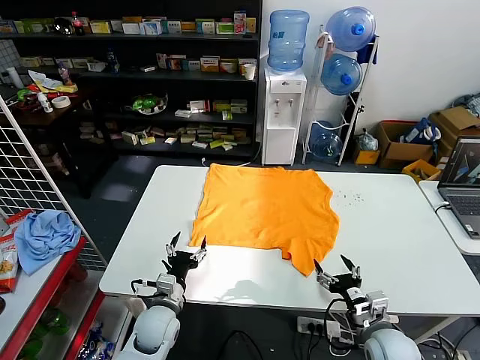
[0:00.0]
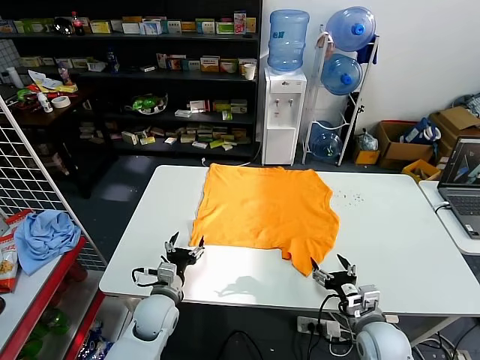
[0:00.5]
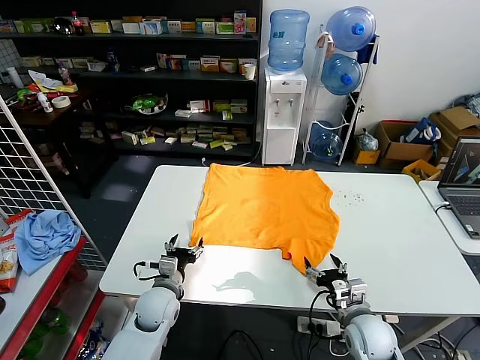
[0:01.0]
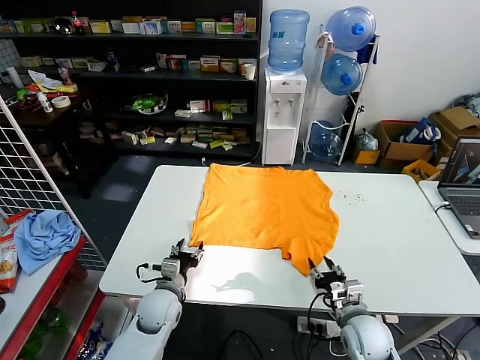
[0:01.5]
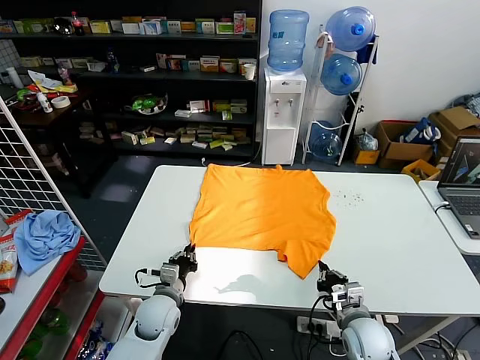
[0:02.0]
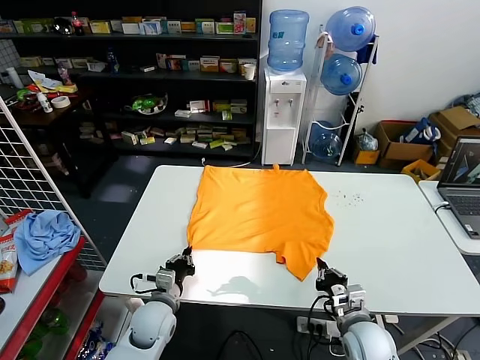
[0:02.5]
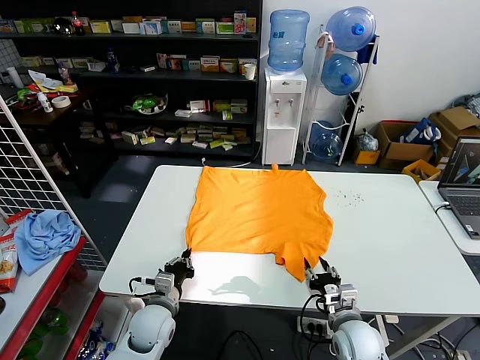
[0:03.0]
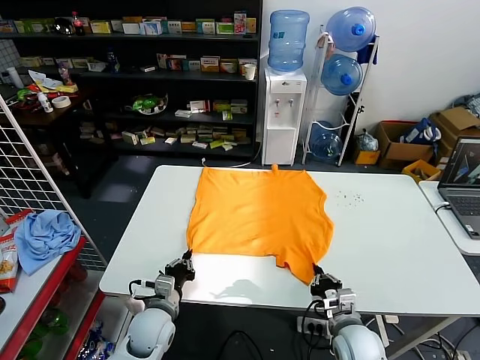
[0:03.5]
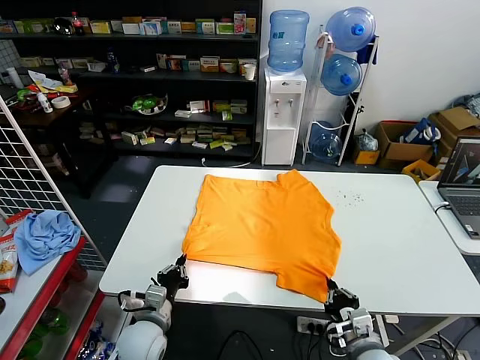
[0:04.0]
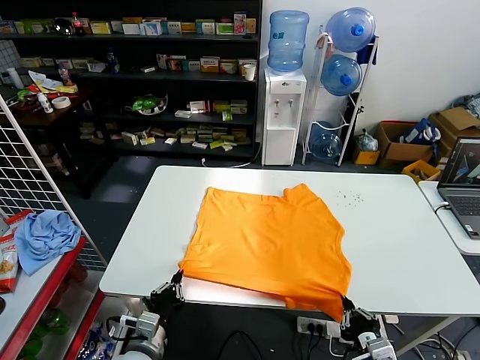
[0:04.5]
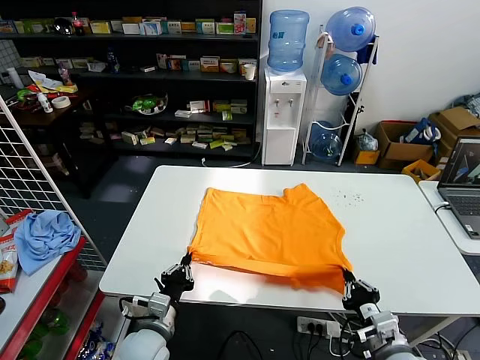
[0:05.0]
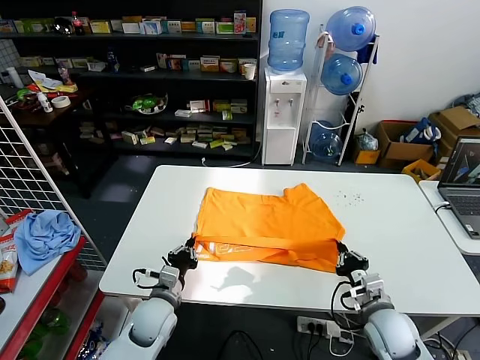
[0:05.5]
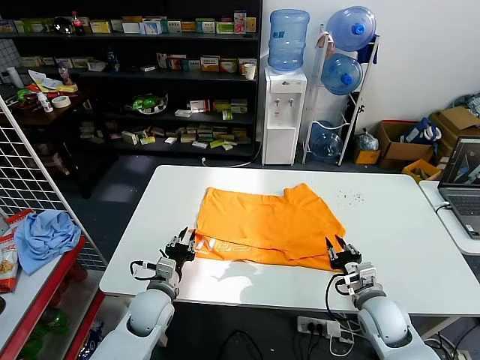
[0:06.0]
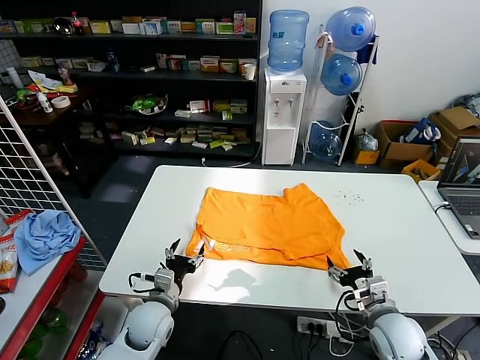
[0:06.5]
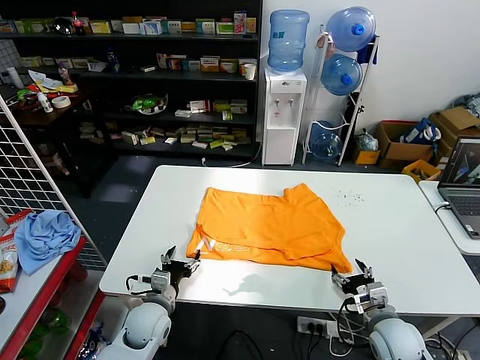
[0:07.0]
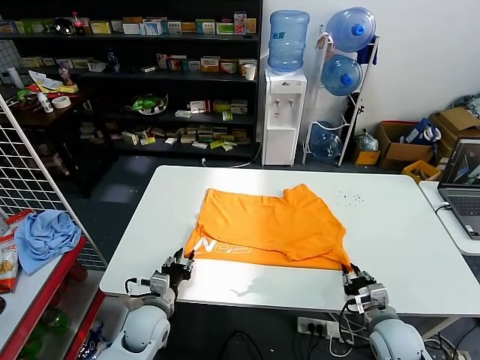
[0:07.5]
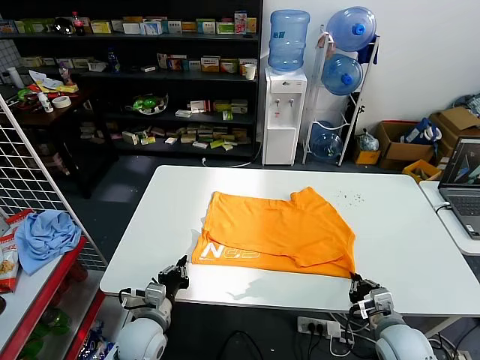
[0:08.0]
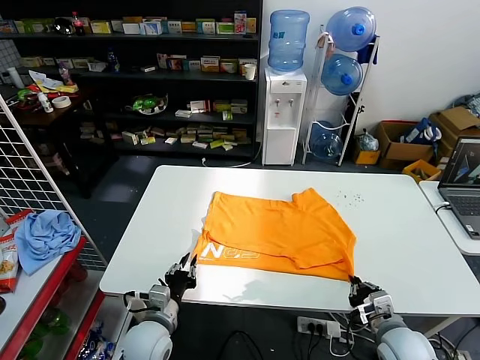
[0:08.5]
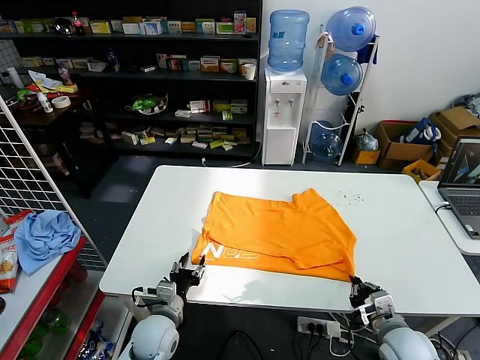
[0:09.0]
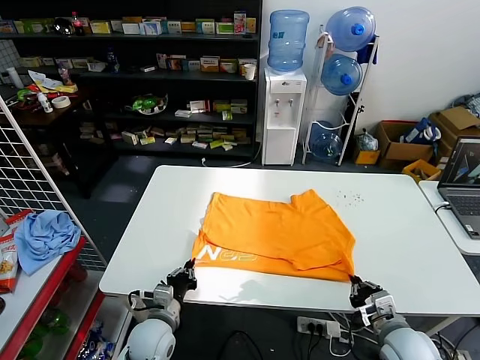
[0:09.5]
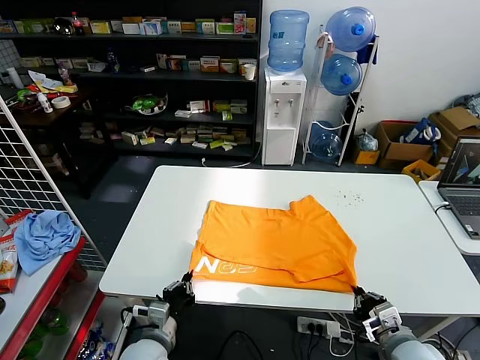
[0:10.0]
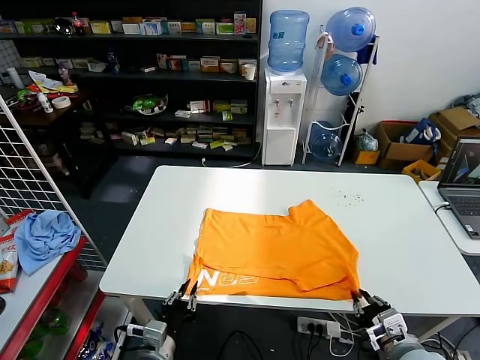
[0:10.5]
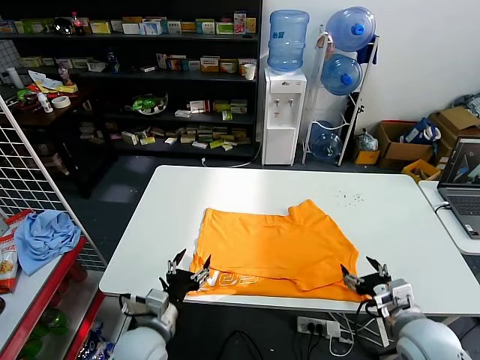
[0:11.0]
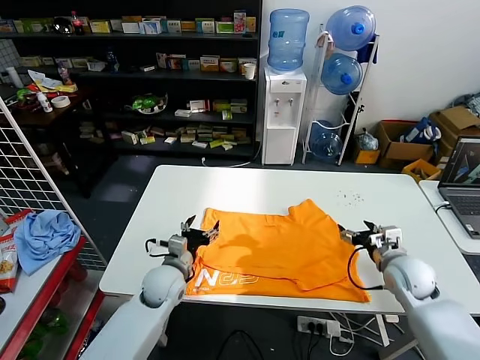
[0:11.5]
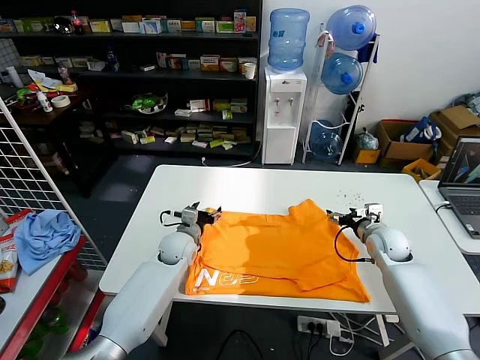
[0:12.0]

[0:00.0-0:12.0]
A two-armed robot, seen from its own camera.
Task of the whole recording: fold and organize the clothes.
Step, 0:00.0 to 0:03.5: use both grippers simultaneously to clamp the lower edge of the clothing fabric.
Step, 0:04.0 to 0:06.0: use both grippers to drag the lower edge of the fabric forward and fold it over the upper edge.
Step, 0:06.5 to 0:10.5: Drag the clothes downward with both gripper.
0:02.0 to 0:04.0: Both grippers move backward, approximately 5 cm. The right gripper opens, then closes again.
0:04.0 to 0:06.0: The left gripper heads forward, covering some 5 cm, and opens up. Meanwhile the right gripper moves forward, some 10 cm, and opens.
0:06.0 to 0:08.0: The grippers both shift backward by approximately 5 cm. The right gripper closes, while the left gripper closes up.
0:08.0 to 0:10.0: The left gripper opens, then closes once more.
0:10.0 to 0:12.0: Both grippers move forward, approximately 25 cm. The right gripper opens. Meanwhile the left gripper opens its fingers.

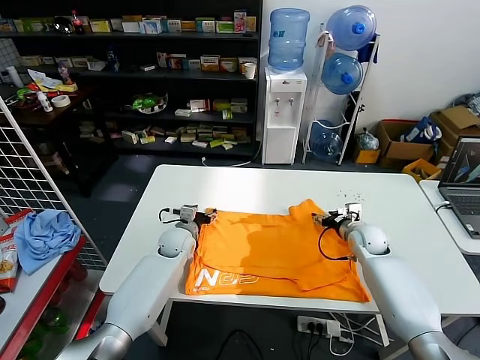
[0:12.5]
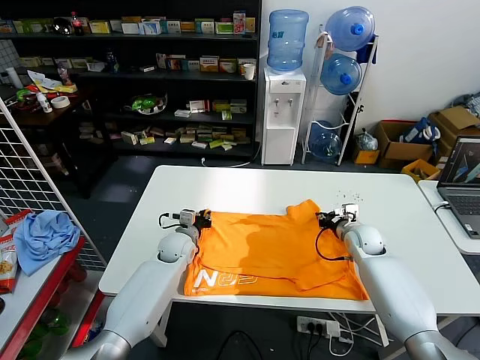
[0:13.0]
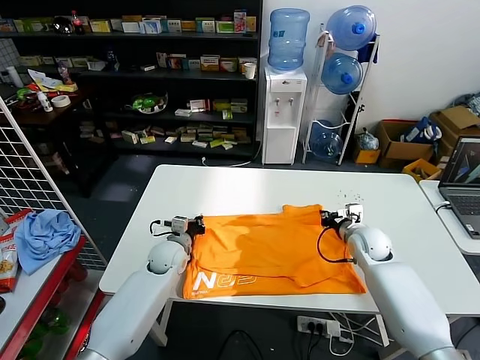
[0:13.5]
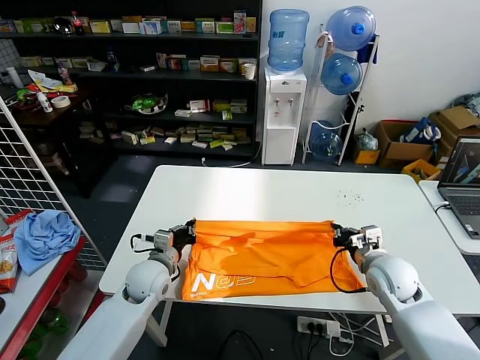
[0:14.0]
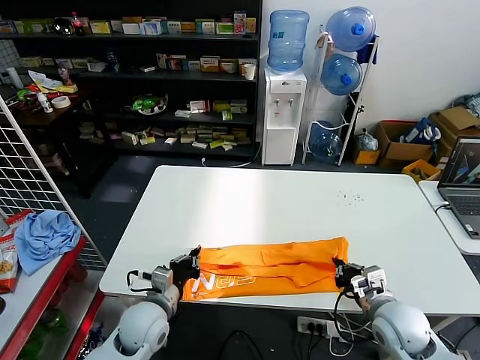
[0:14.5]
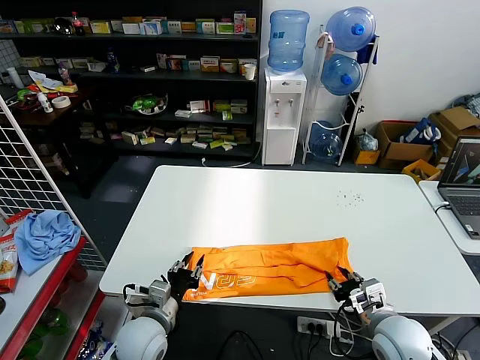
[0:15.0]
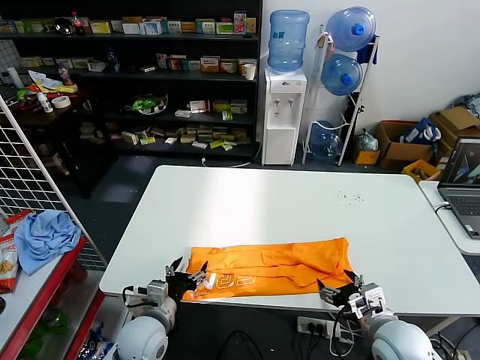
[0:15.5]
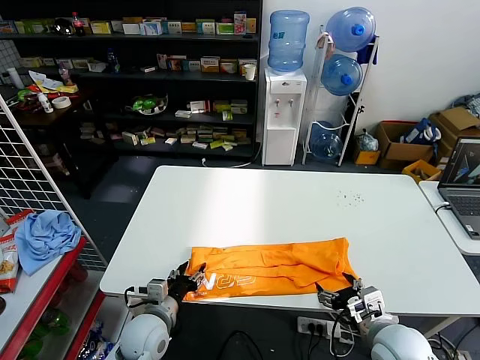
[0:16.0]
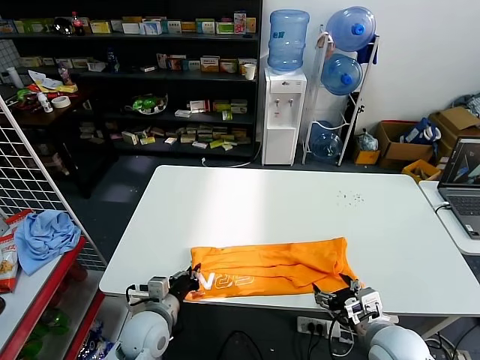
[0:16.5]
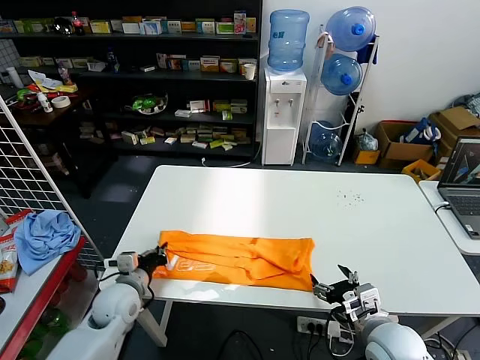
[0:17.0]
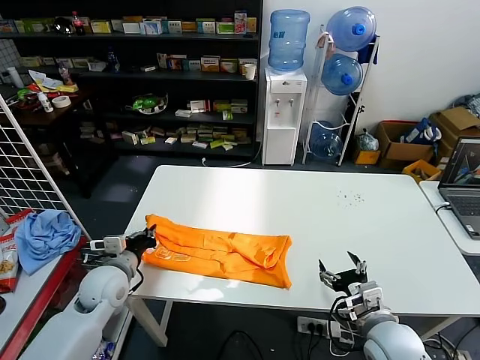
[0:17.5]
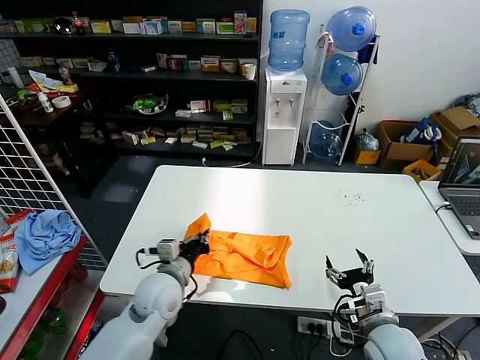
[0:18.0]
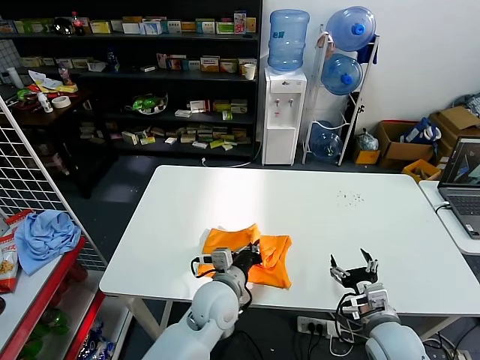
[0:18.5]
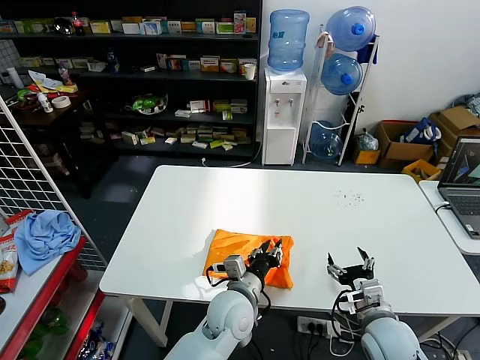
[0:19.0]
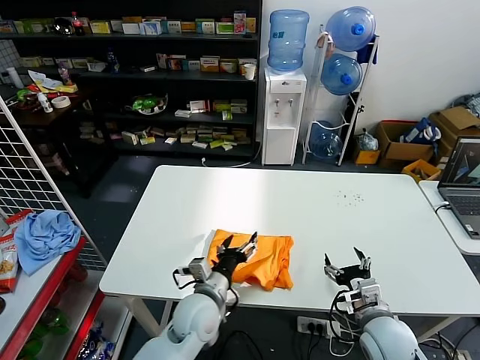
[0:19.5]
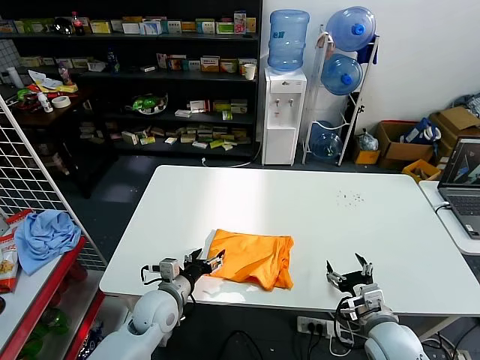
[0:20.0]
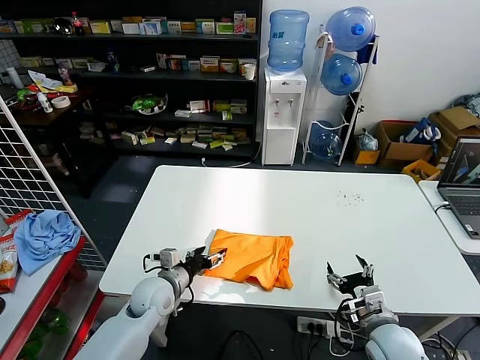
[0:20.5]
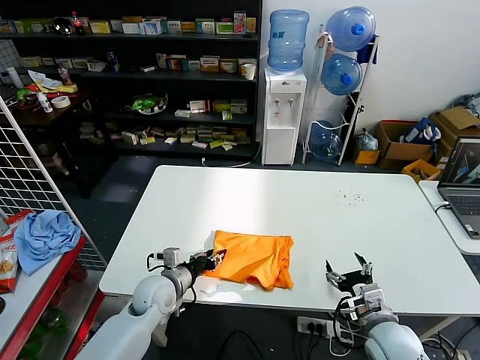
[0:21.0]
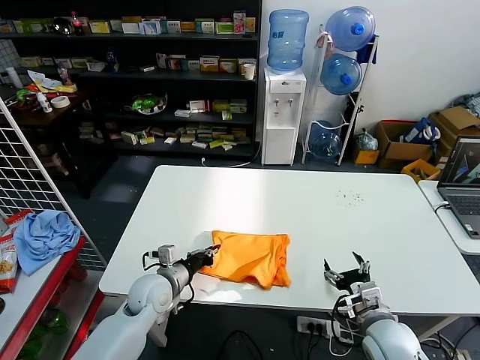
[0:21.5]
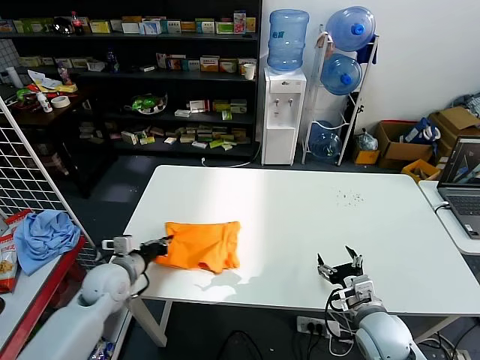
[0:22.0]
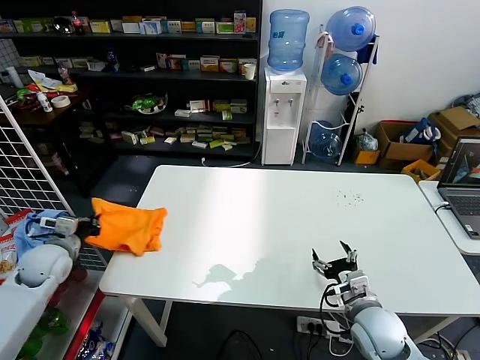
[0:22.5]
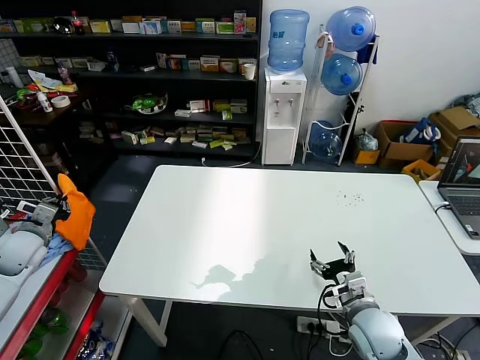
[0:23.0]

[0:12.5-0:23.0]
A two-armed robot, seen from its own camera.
Task of the whole recording: fold and organize the clothes.
Step, 0:13.5 to 0:15.0: use both grippers to drag the upper edge of the fabric backward and fold it over the lower edge.
Step, 0:15.5 to 0:16.5: use the left gripper to clamp the left edge of the fabric.
Step, 0:17.0 to 0:19.0: use the left gripper to drag the left edge of the fabric to the left and folds it over the right edge.
0:12.5 to 0:14.5: The grippers both shift backward by some 20 cm. The left gripper closes. Meanwhile the right gripper closes its fingers.
0:14.5 to 0:16.5: The right gripper changes place by about 5 cm, and opens up, while the left gripper opens and closes again.
0:16.5 to 0:19.0: The left gripper shifts about 20 cm to the right.
0:19.0 to 0:21.0: The left gripper goes approximately 20 cm to the left, and opens, then closes again.
0:21.0 to 0:23.0: The left gripper shifts some 30 cm to the left and upward, and closes.

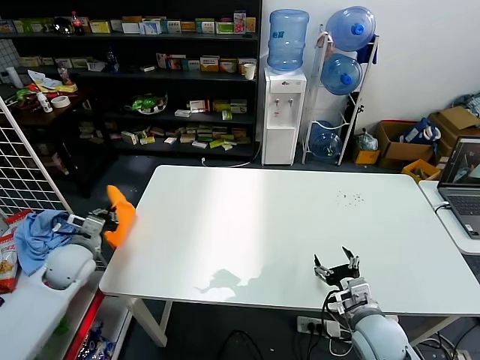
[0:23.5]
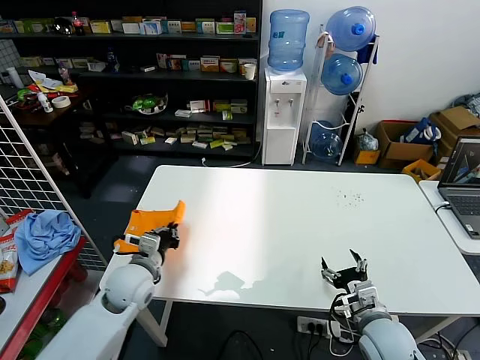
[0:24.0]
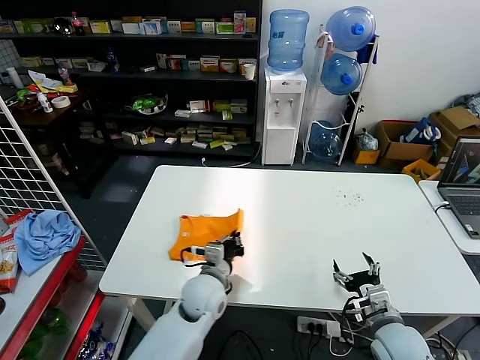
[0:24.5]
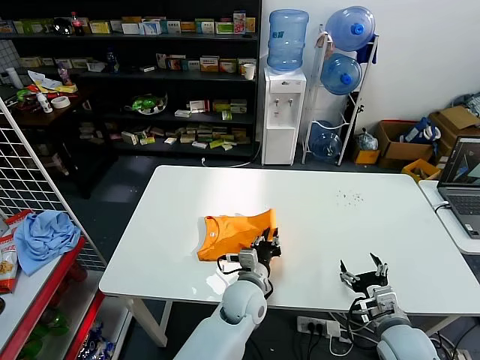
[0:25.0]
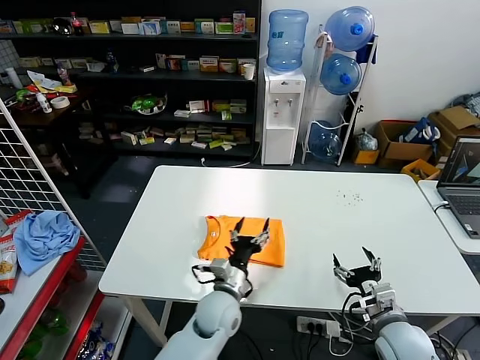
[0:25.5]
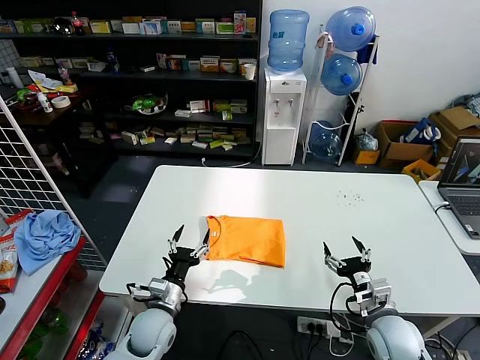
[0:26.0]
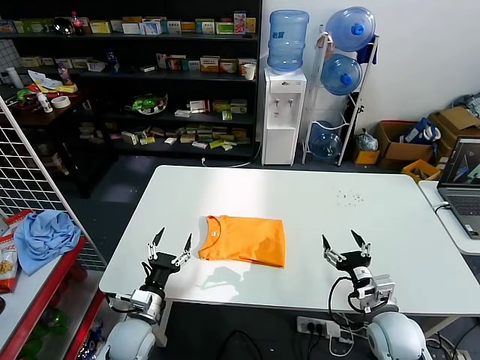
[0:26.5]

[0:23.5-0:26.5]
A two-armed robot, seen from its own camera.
Task of the whole recording: fold and organize the clothes.
0:23.5 to 0:25.0: The right gripper moves some 5 cm, while the left gripper travels to the right by some 40 cm.
0:25.0 to 0:26.5: The left gripper heads to the left, covering some 25 cm, and opens its fingers.
